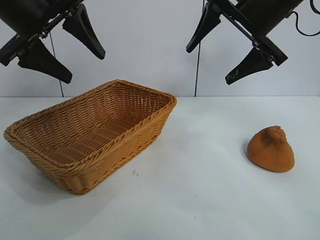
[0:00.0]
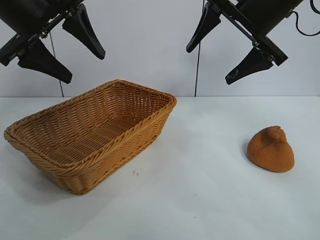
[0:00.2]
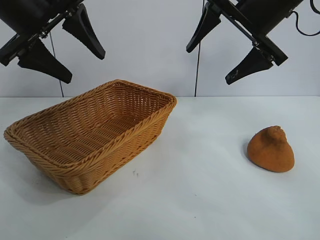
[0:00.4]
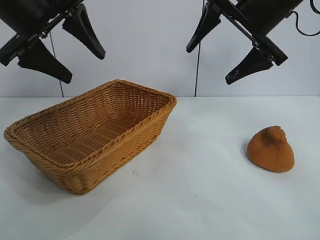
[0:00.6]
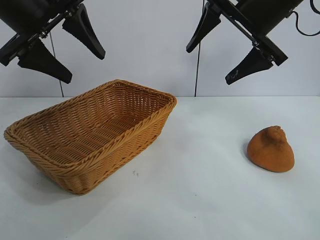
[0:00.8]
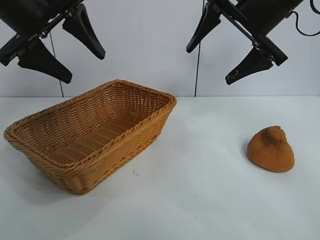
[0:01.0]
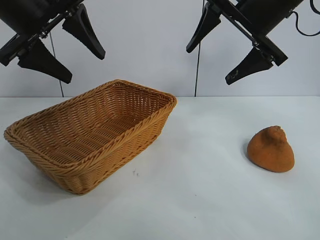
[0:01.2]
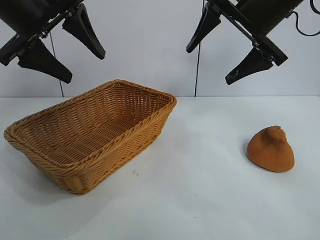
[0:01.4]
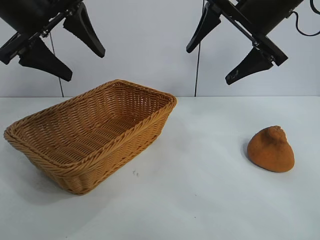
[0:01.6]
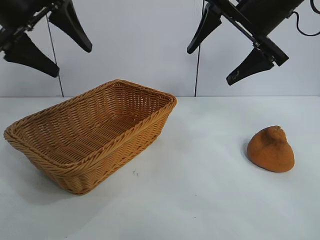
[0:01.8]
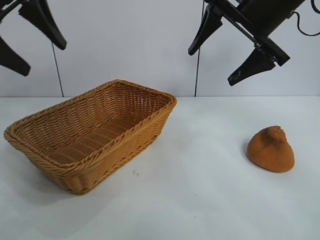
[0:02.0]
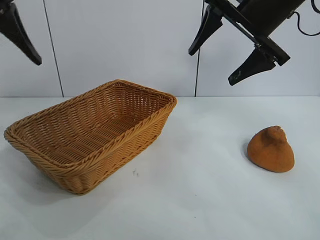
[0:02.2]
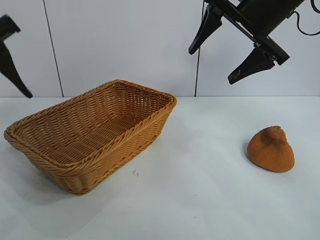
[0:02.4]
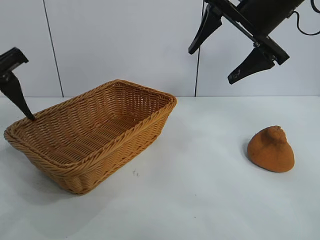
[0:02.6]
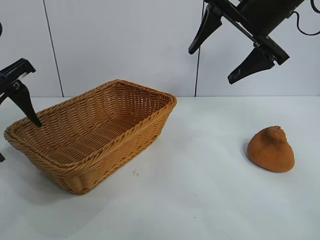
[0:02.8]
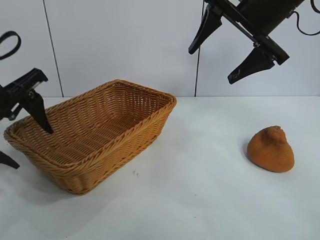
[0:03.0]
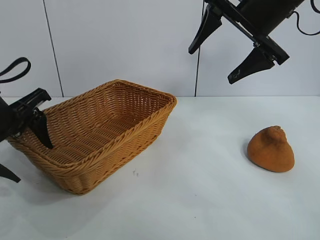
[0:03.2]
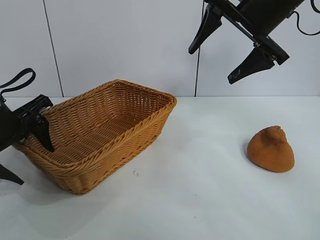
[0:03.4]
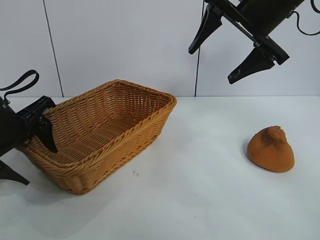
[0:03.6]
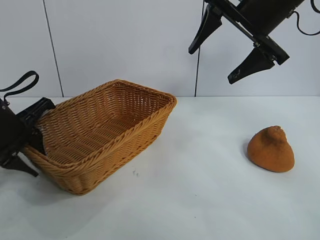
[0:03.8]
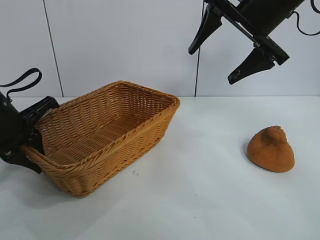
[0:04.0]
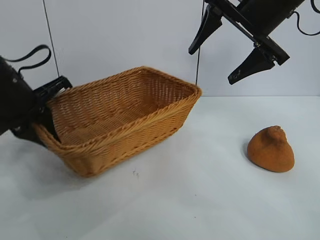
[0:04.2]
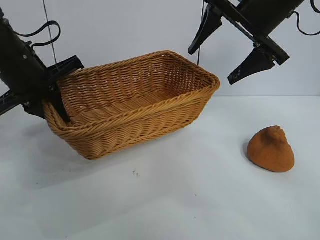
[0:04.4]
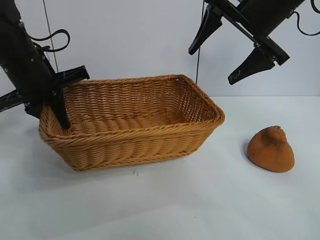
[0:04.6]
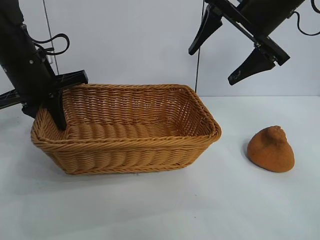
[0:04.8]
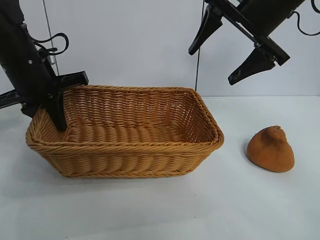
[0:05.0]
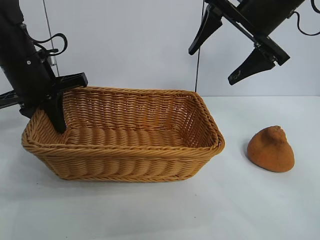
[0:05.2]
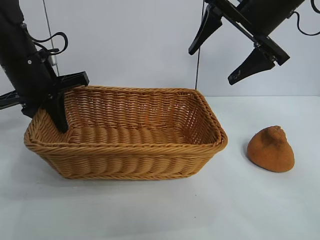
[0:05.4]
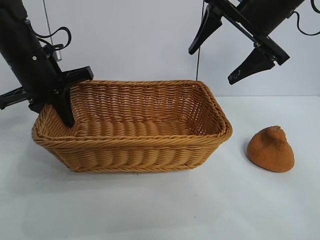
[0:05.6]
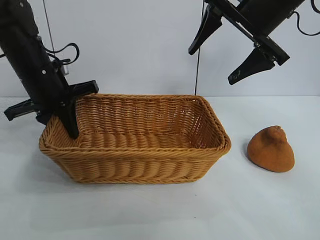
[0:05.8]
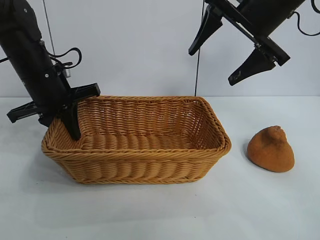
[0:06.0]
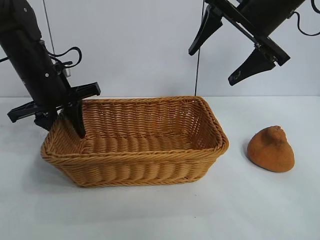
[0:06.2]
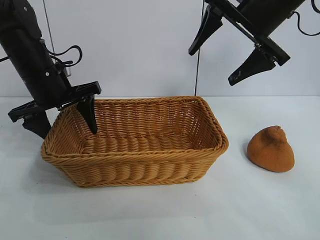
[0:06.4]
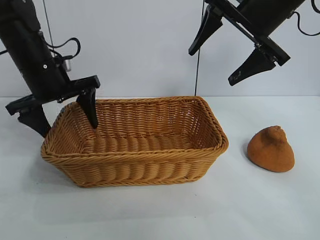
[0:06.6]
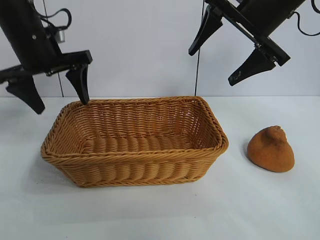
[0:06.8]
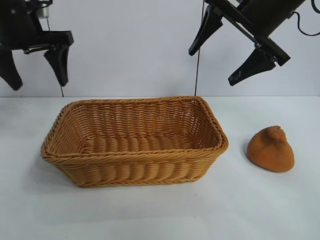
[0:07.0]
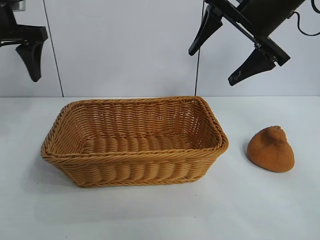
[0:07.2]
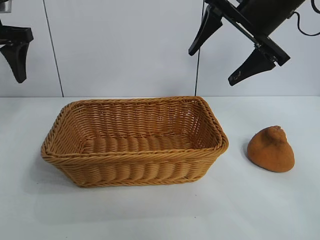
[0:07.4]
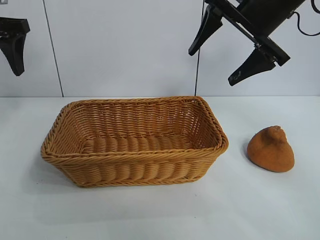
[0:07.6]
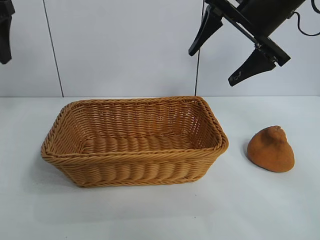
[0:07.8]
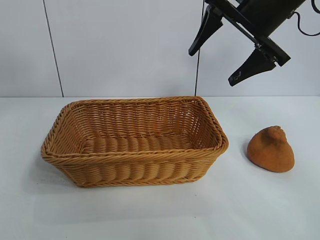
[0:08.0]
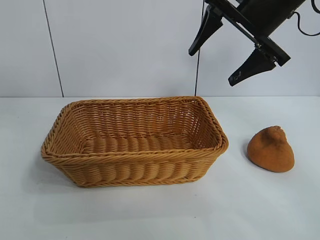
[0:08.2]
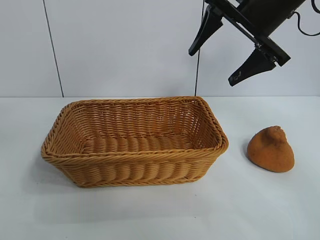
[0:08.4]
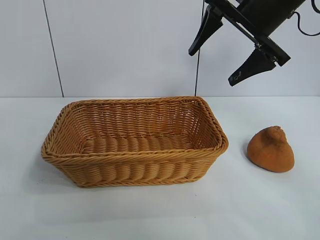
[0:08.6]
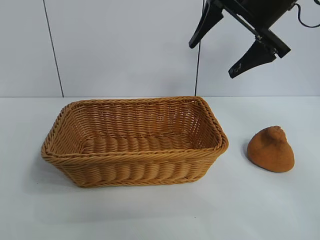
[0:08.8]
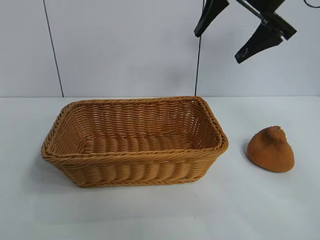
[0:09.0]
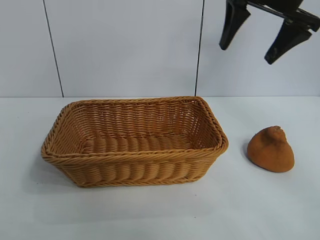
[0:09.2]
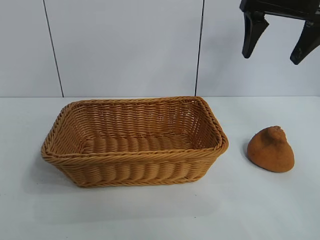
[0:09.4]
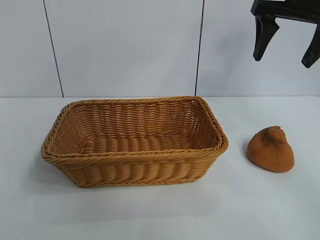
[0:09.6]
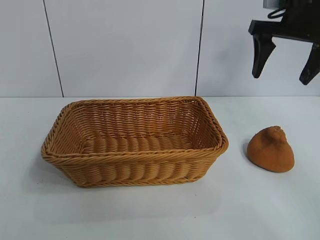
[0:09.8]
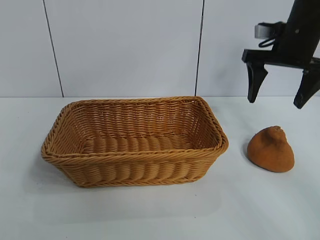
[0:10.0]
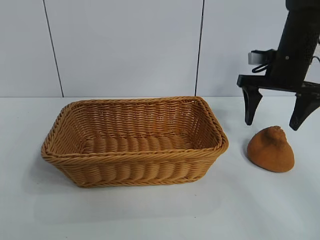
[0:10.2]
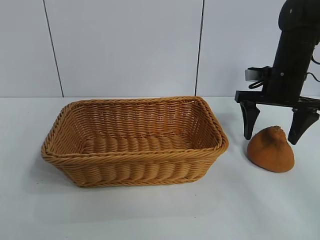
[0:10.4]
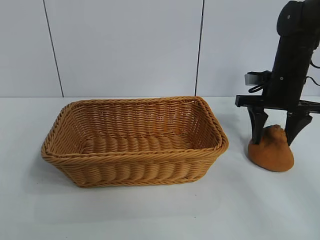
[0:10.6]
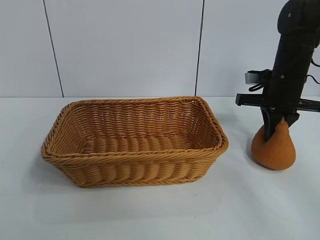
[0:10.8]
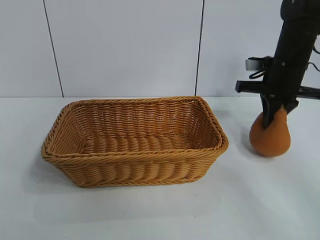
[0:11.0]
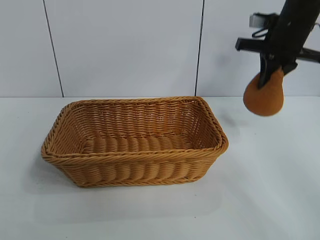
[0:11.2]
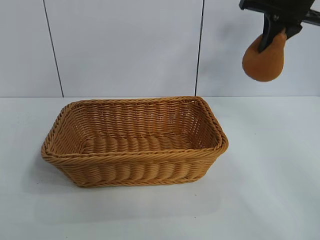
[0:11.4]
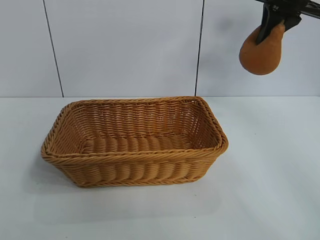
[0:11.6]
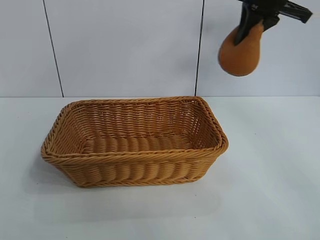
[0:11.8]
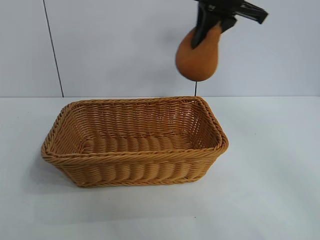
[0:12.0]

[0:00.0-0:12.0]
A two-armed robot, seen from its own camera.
Task of the whole recording: pick up the orange and put it into the basket.
Step, 0:01.6 to 0:03.8: Grasp the basket with left gripper.
Step, 0:04.0 to 0:06.2: Place the basket in the center of view with left gripper.
Step, 0:06.6 to 0:10.6: Grasp the orange with right gripper.

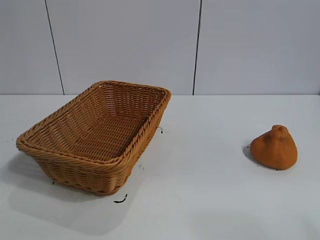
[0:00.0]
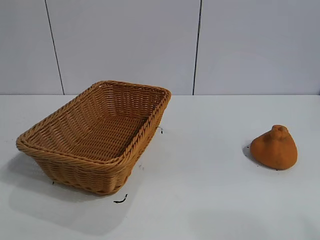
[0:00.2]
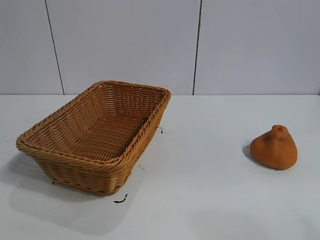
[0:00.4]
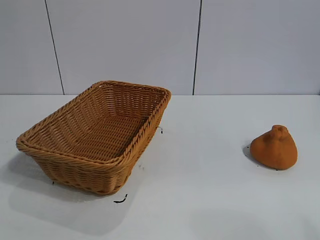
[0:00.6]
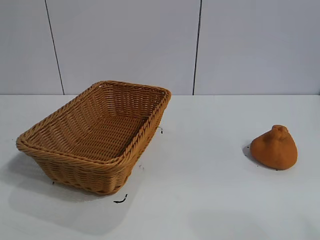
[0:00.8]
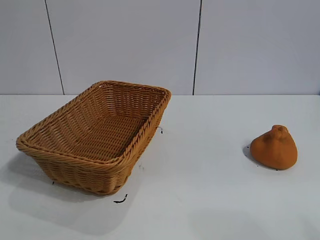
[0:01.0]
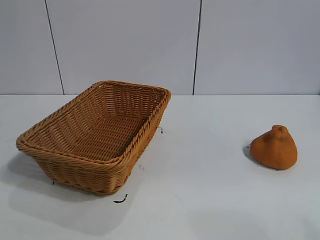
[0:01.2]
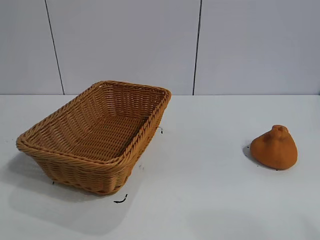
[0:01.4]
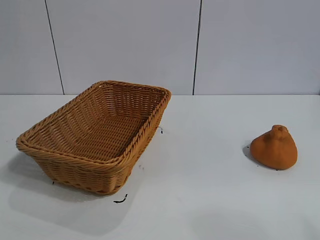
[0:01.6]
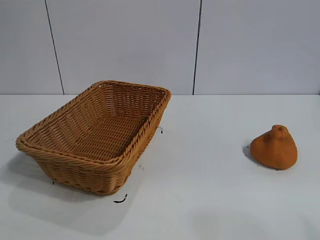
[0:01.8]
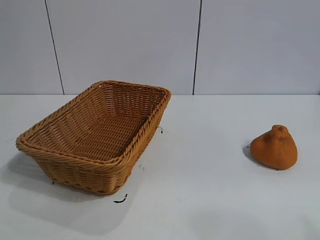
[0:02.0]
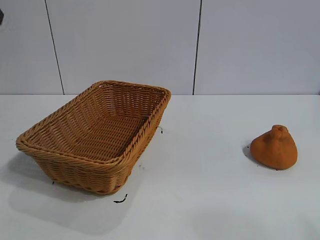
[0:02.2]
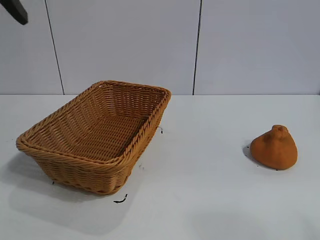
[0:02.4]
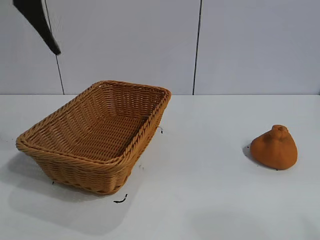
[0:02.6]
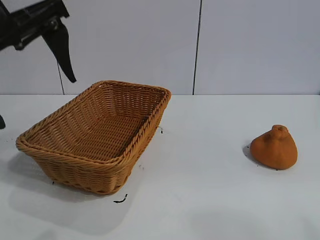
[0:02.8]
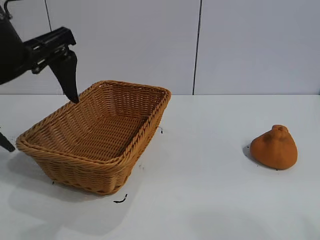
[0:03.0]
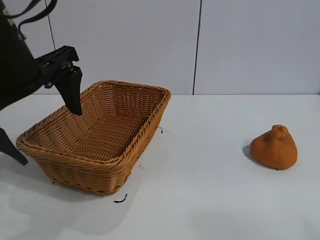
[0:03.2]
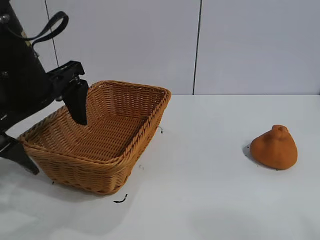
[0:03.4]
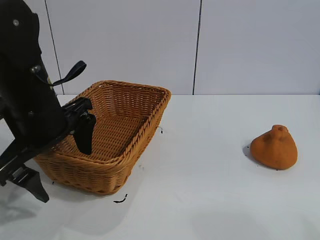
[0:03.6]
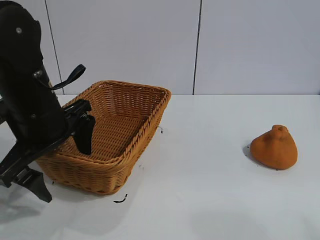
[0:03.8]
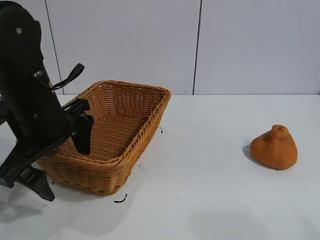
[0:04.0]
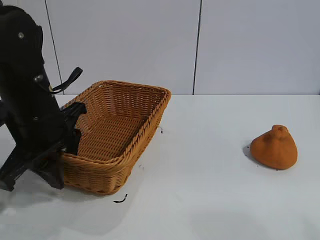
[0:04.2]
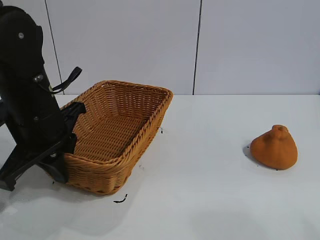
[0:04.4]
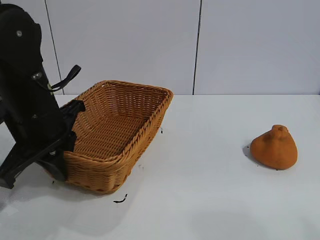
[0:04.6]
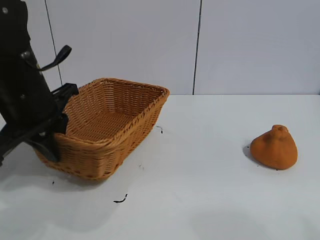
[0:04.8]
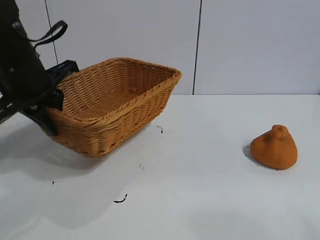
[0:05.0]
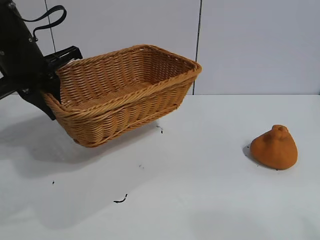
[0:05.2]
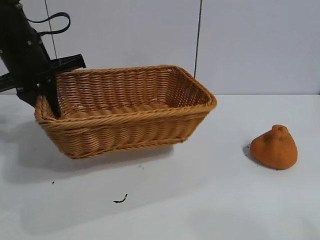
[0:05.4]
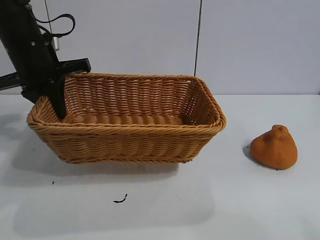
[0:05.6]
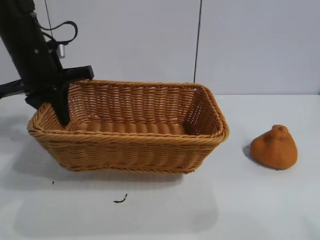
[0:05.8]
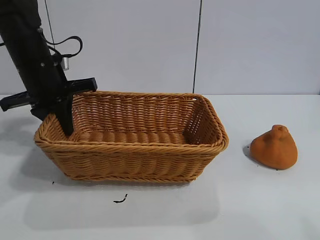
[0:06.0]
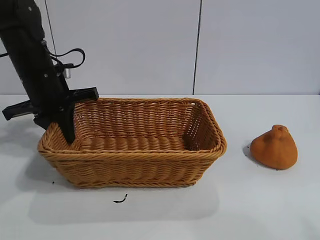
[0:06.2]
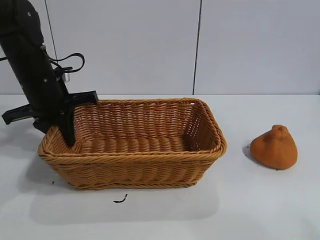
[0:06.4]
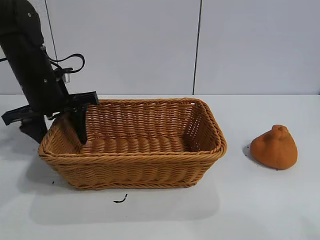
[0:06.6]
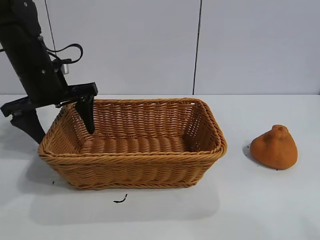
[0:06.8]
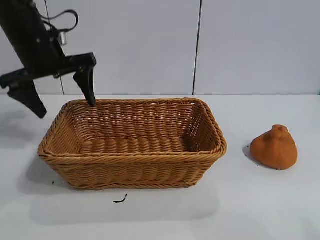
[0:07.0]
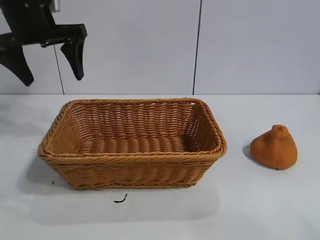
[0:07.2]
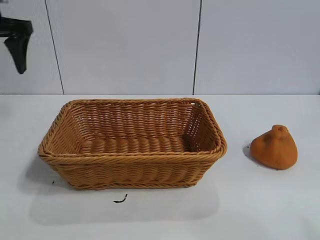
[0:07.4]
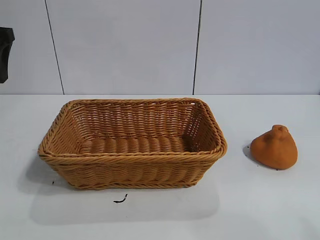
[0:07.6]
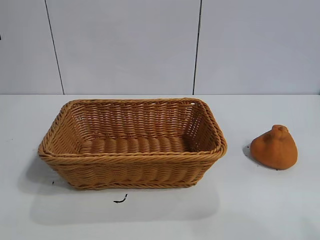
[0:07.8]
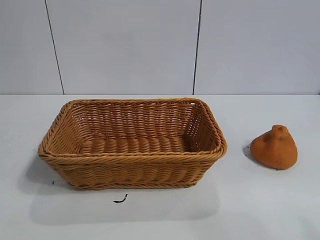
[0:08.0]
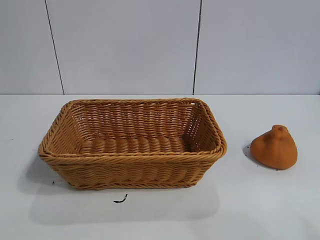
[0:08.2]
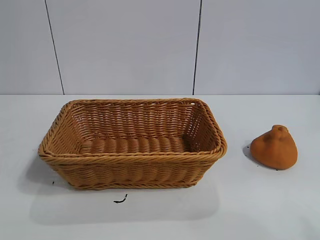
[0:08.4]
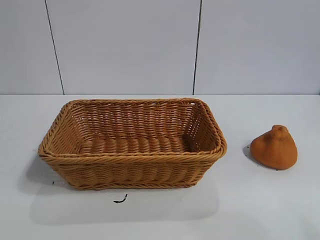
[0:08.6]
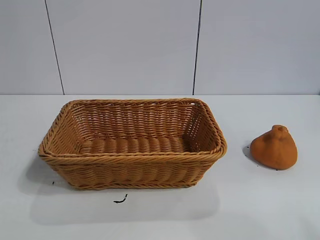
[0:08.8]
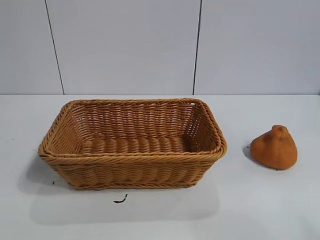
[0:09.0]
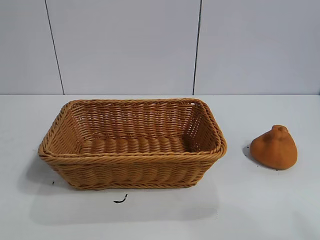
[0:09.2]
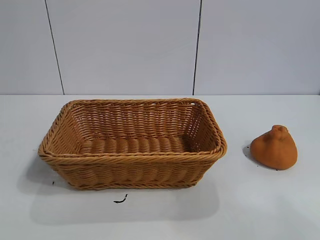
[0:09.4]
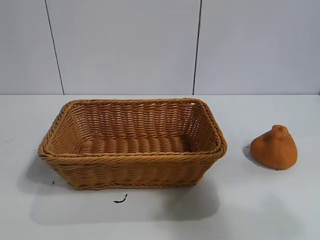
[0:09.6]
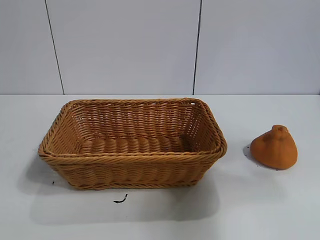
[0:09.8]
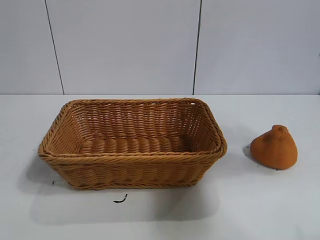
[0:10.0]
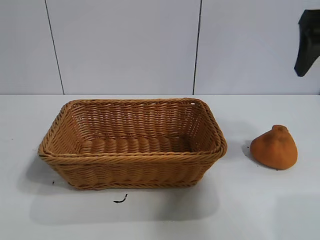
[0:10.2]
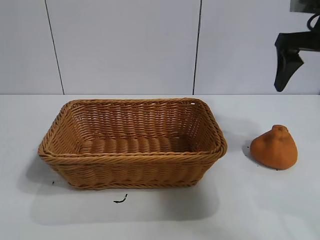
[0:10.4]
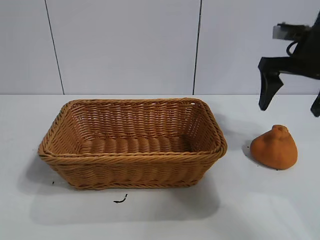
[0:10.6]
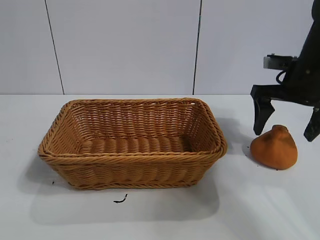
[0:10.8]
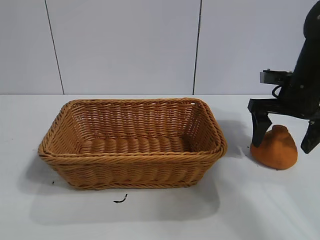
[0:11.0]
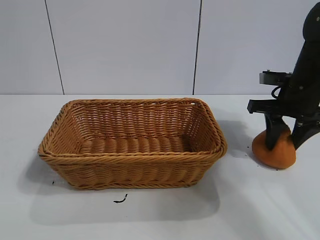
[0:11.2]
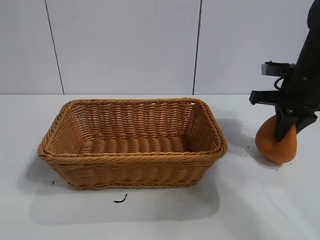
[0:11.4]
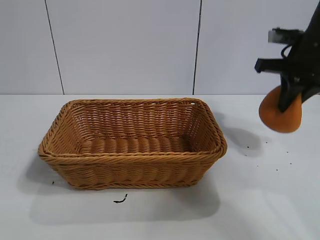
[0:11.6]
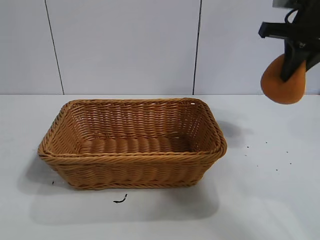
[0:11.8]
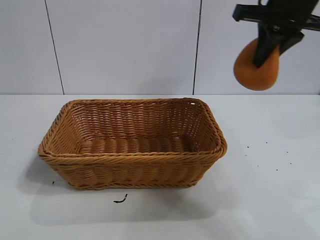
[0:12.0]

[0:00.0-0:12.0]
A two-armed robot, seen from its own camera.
Task of the whole recording: pick up the orange and put it into the basket.
Step, 0:01.6 to 0:04.4: Grasp the basket with left gripper.
Step, 0:04.6 to 0:06.6: Place the basket in the center of view with left gripper.
Step, 0:07.0 to 0:11.2: Grasp the orange with right gripper.
